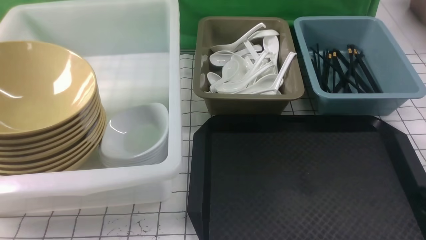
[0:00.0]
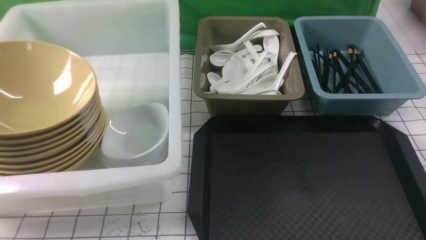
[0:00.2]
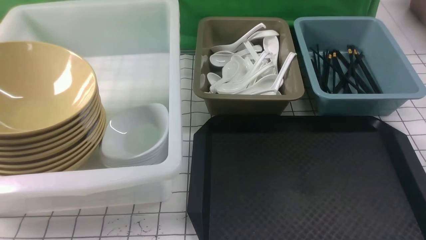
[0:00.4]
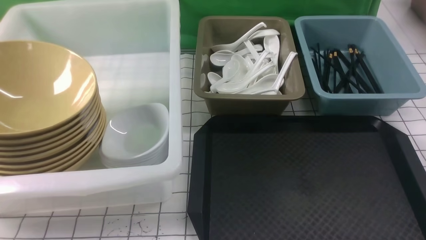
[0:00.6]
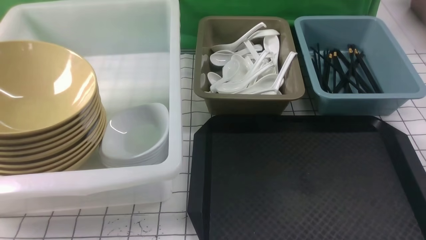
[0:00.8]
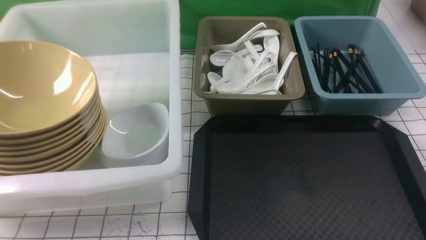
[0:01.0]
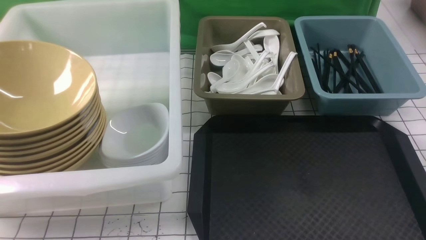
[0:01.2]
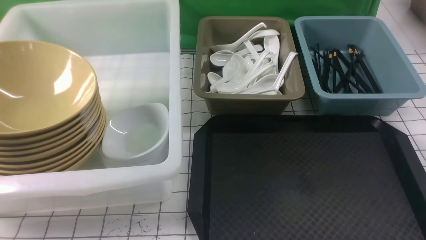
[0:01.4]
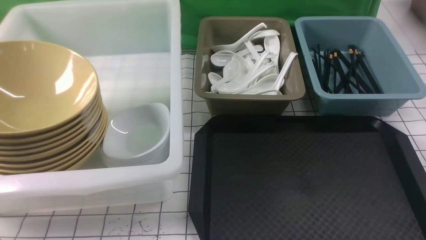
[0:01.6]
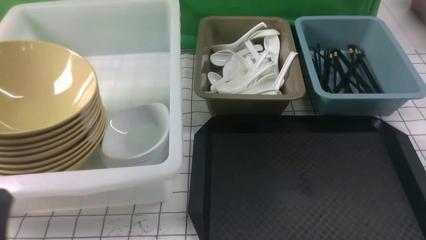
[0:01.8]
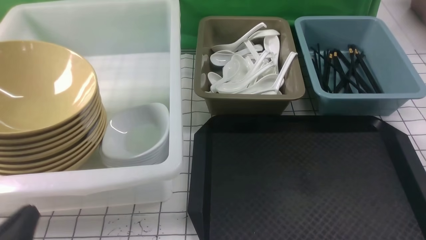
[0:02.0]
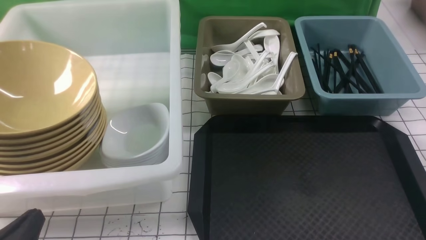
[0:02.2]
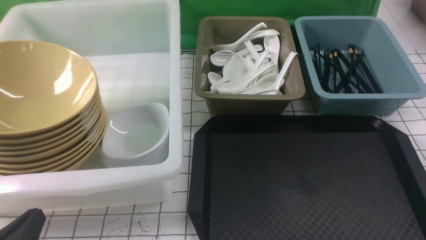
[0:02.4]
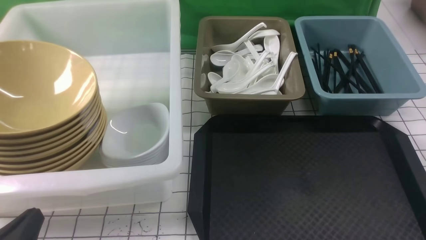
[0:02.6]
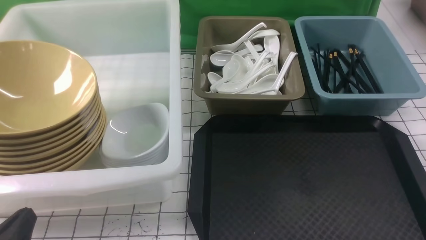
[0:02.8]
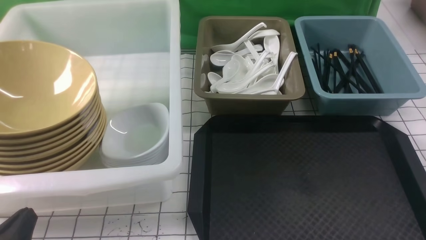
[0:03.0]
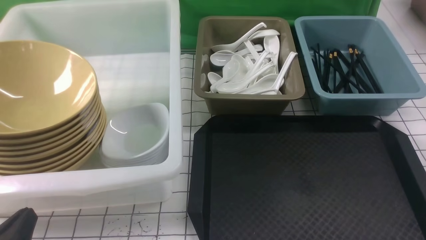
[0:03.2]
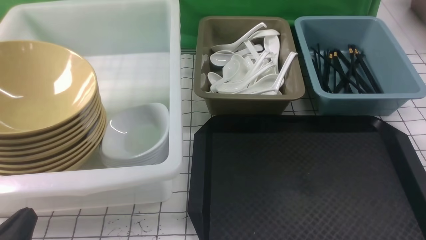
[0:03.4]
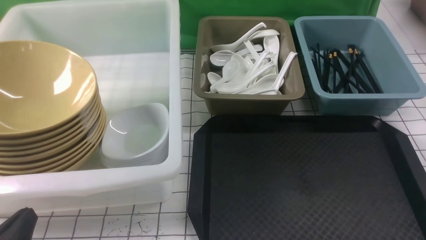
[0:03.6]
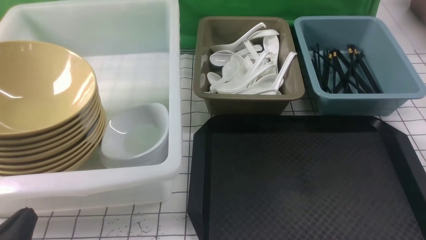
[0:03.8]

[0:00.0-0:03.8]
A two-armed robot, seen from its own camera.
Task of the whole recording: on white black table put chopsticks spoon bowls plates into blue grey white boxes.
0:01.2 to 0:02.6: The left gripper heads downward, covering about 10 cm.
0:02.6 to 0:03.8: Both grippers stay put.
